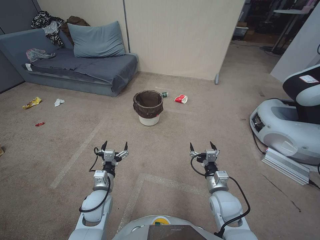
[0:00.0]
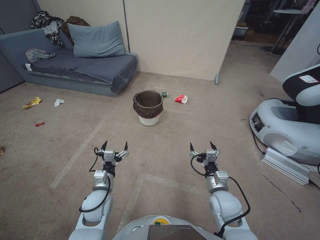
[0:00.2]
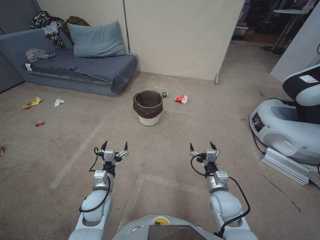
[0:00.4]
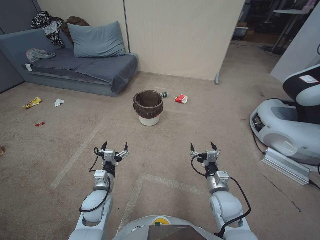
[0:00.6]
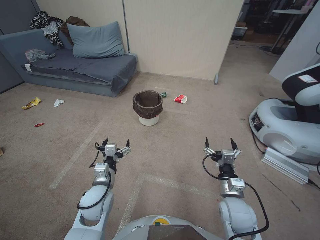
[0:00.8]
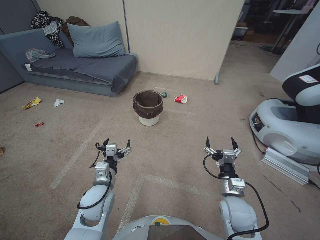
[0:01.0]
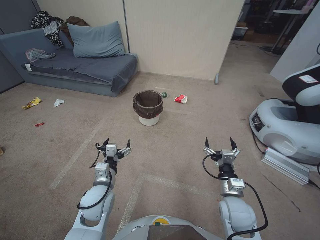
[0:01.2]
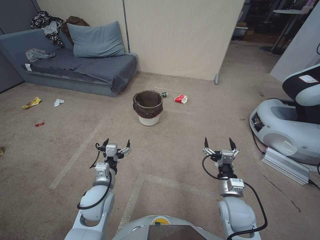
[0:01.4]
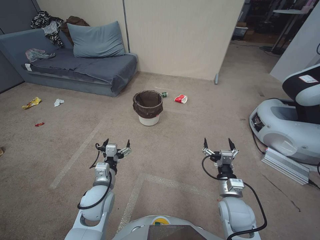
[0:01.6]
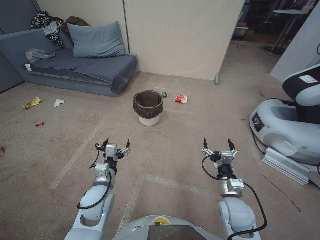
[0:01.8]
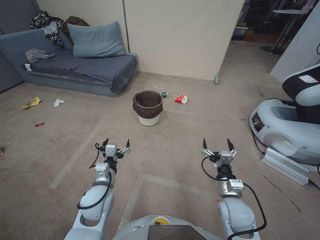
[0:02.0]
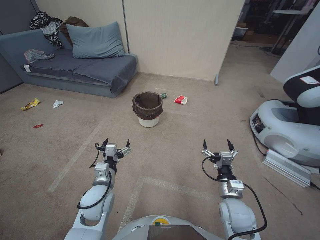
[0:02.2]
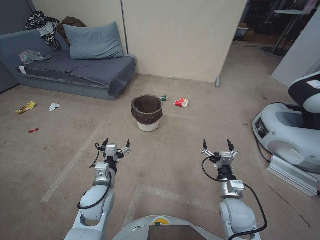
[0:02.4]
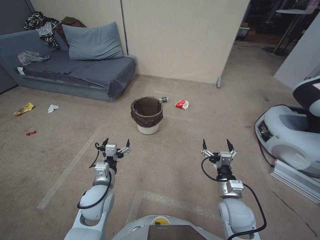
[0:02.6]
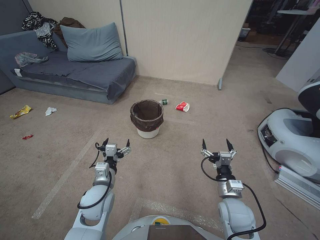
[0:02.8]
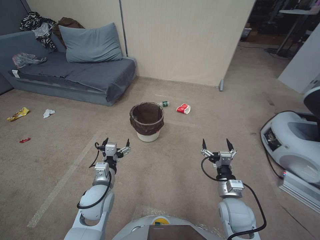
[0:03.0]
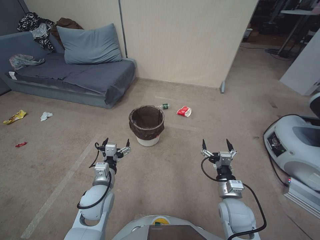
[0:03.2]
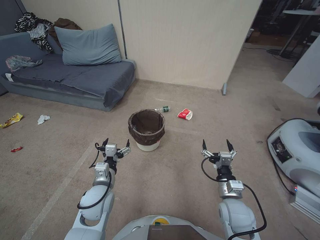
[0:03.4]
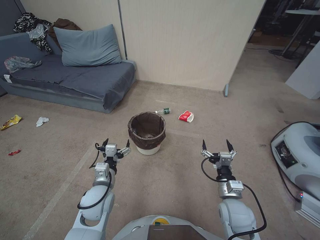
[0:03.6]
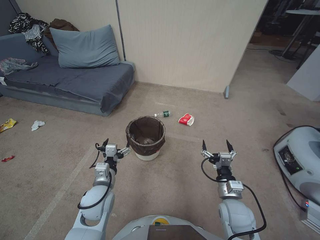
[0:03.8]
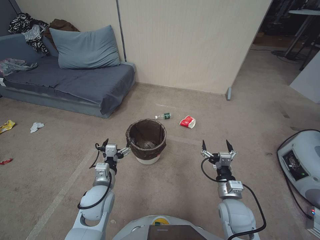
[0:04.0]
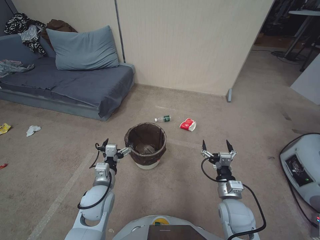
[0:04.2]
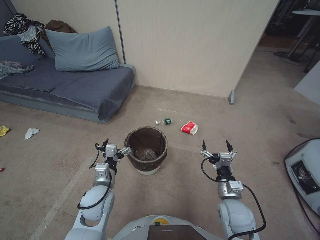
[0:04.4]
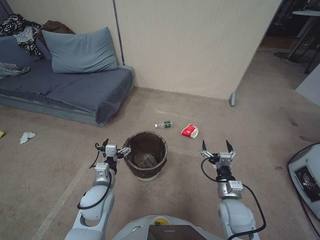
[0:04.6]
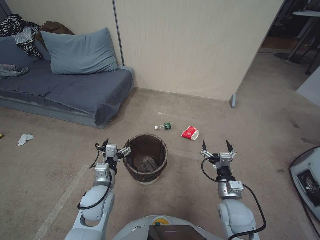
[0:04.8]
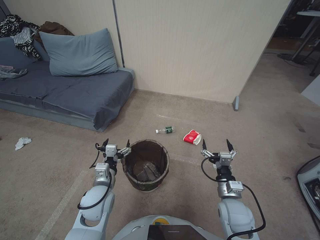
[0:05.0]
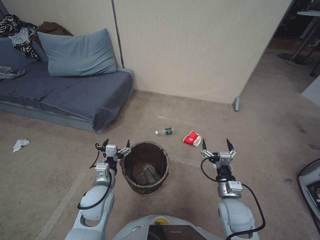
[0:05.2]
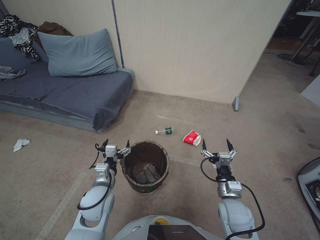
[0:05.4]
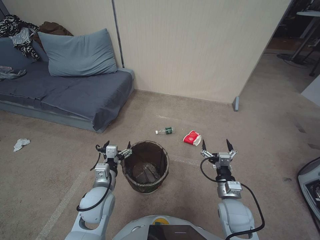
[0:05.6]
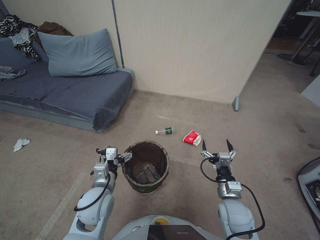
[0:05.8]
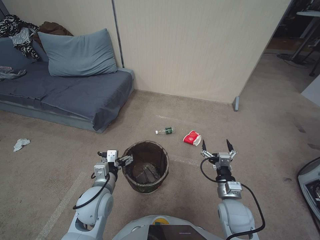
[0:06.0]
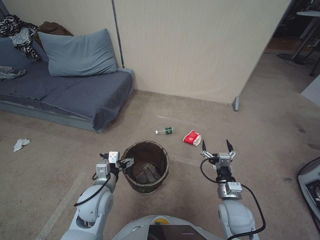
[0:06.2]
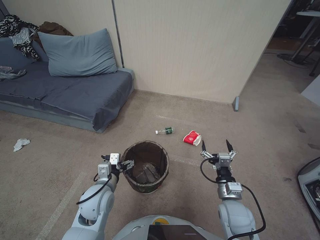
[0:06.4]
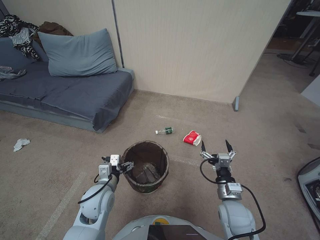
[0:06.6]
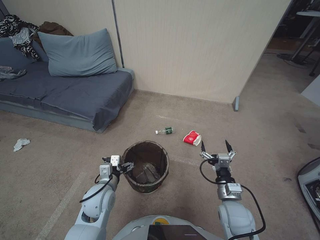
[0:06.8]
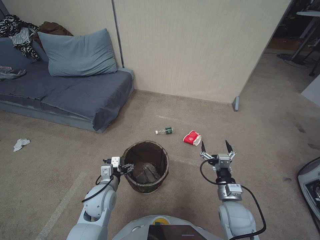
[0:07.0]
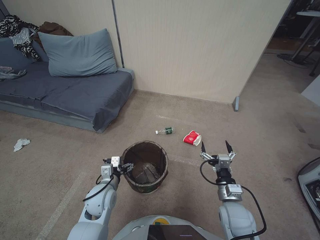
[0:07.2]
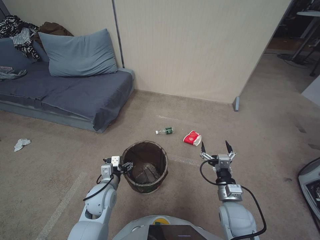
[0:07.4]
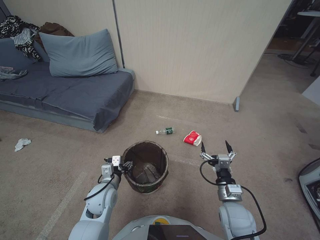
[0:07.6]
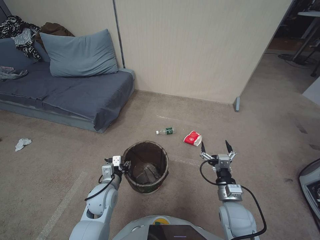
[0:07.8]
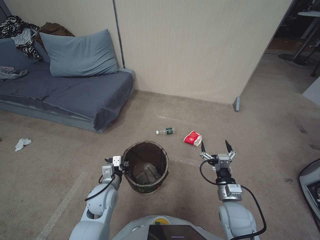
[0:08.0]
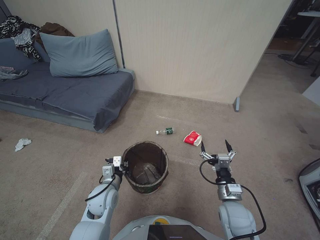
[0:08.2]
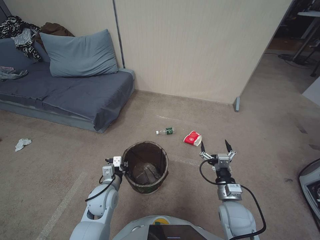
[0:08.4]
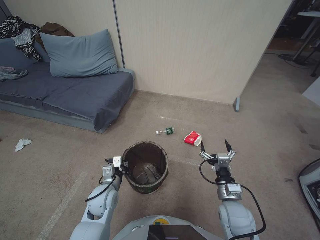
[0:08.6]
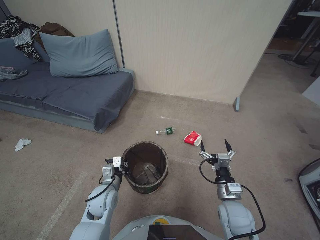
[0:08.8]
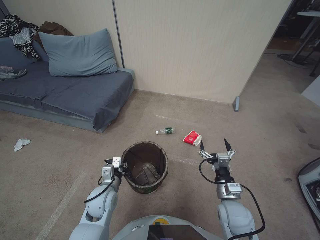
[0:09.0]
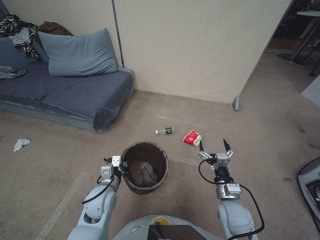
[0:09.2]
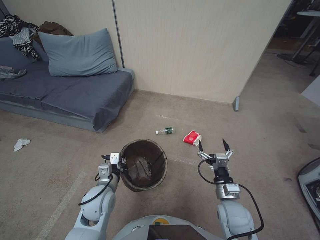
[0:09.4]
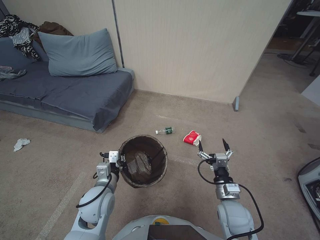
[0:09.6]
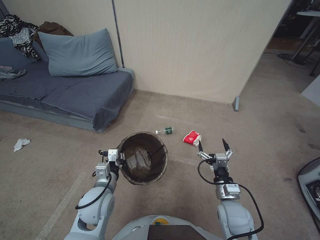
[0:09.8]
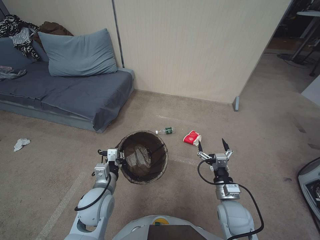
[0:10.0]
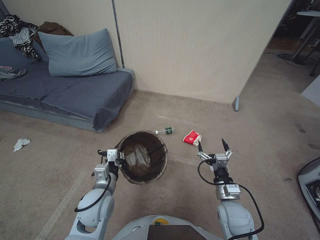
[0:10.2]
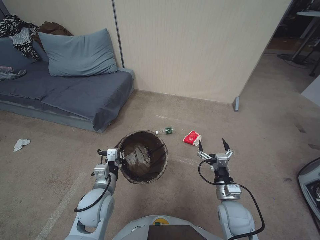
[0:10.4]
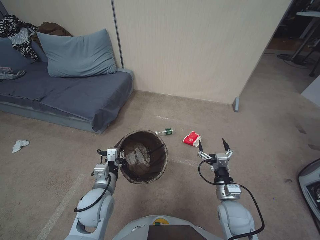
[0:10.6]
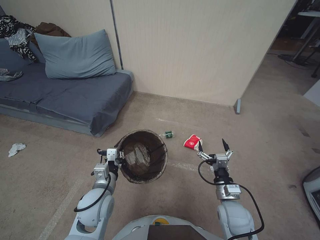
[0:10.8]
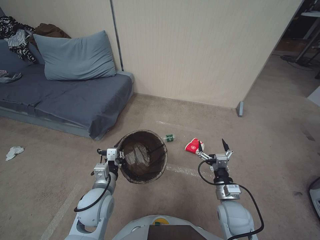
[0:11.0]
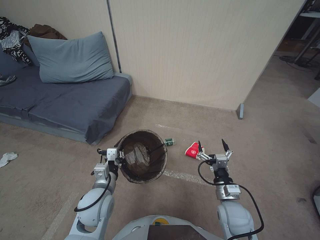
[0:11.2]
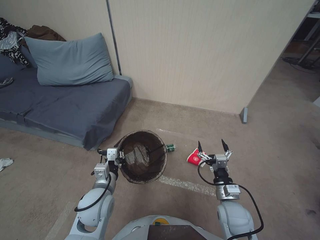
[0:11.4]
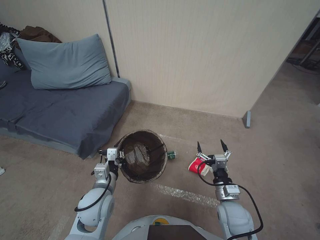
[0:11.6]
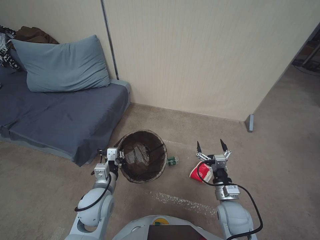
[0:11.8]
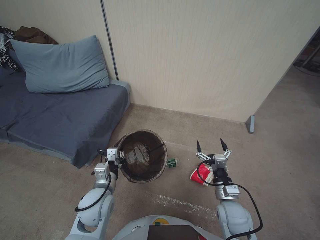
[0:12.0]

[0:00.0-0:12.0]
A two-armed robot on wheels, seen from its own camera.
Task of the whole recording: Pick up the trash bin, then pick up the garbage from the floor and place it into the trash bin.
0:01.6 to 0:03.0: Both grippers stay about where they are.
0:04.4 to 0:06.0: The grippers make only small movements.
0:06.0 to 0:07.6: The left gripper travels downward by roughly 5 cm.
0:07.6 to 0:09.0: The left gripper closes its fingers.
0:09.0 to 0:10.4: The left gripper moves upward, approximately 5 cm.

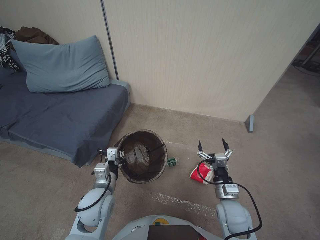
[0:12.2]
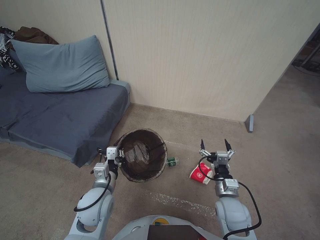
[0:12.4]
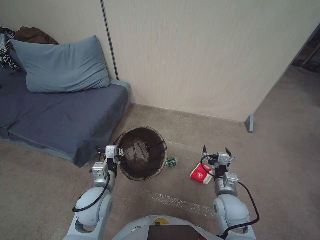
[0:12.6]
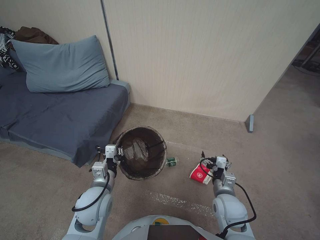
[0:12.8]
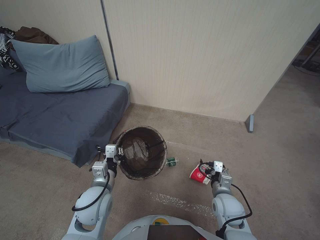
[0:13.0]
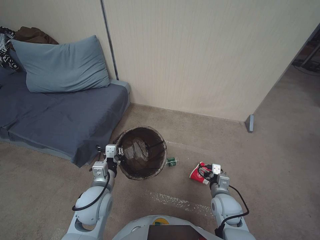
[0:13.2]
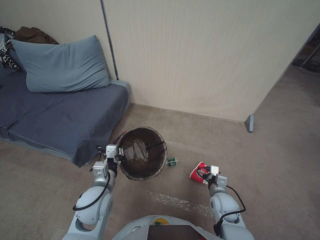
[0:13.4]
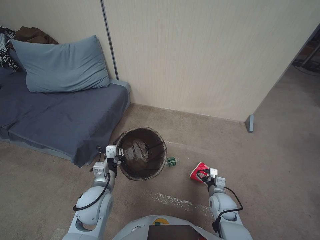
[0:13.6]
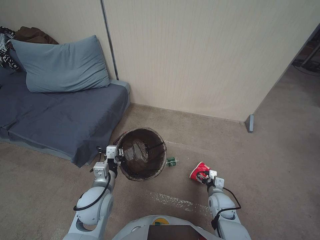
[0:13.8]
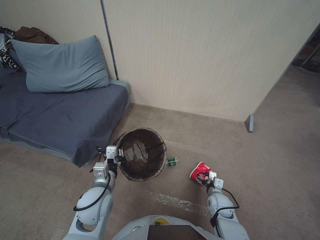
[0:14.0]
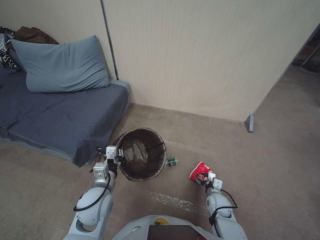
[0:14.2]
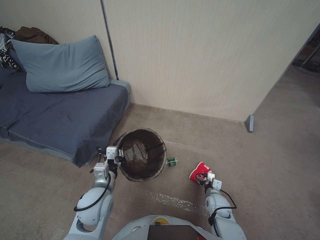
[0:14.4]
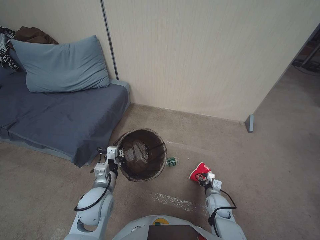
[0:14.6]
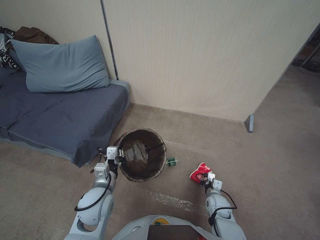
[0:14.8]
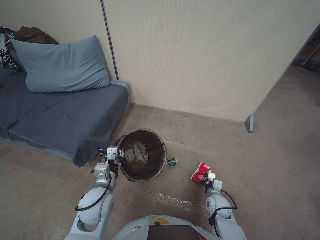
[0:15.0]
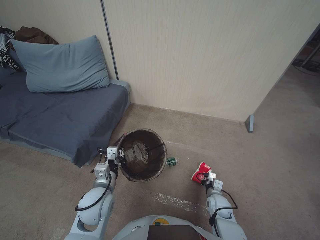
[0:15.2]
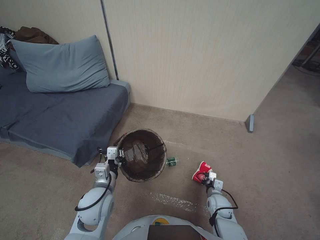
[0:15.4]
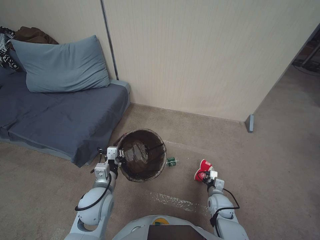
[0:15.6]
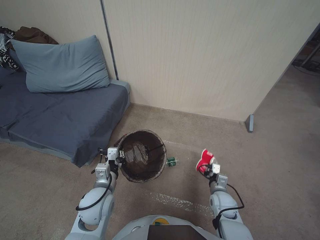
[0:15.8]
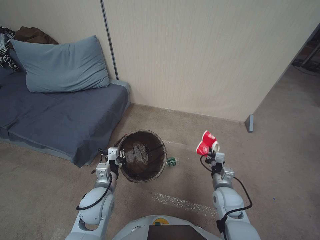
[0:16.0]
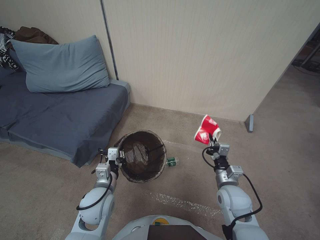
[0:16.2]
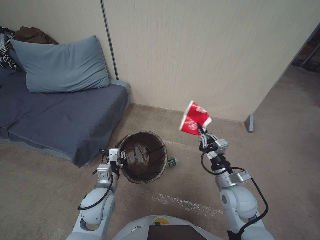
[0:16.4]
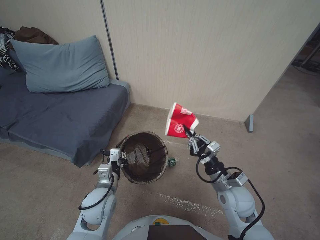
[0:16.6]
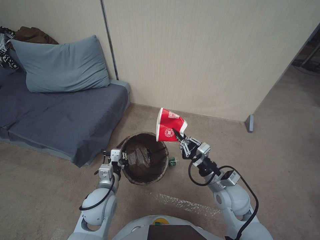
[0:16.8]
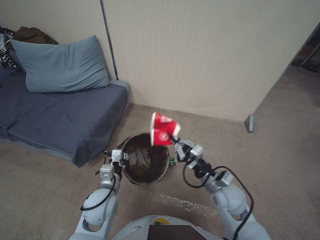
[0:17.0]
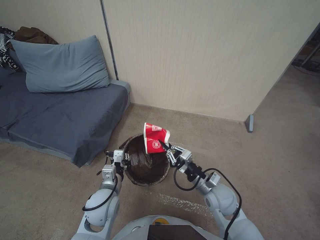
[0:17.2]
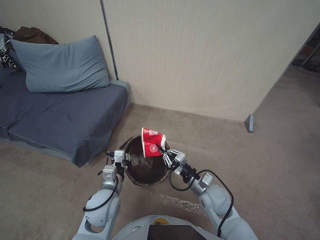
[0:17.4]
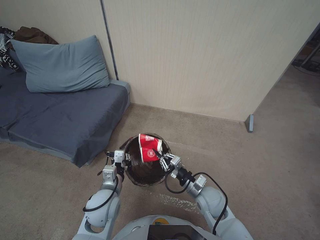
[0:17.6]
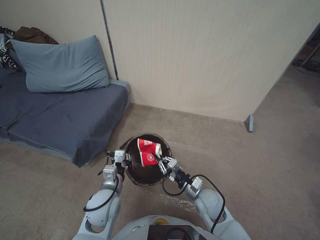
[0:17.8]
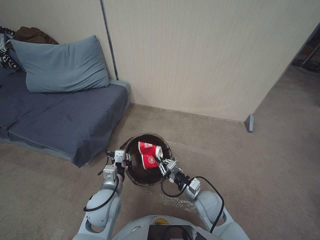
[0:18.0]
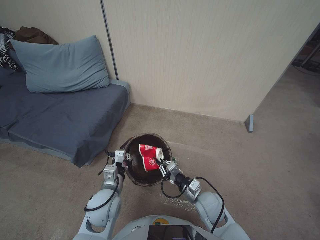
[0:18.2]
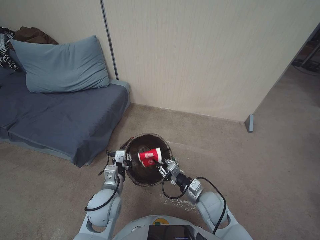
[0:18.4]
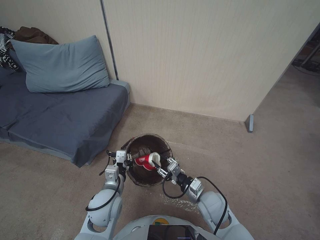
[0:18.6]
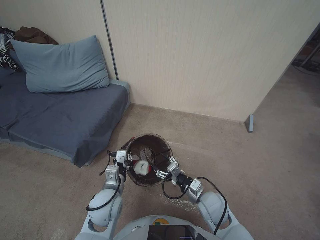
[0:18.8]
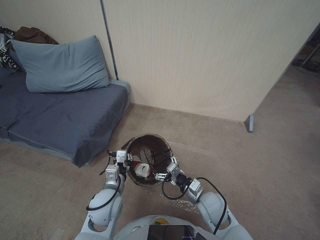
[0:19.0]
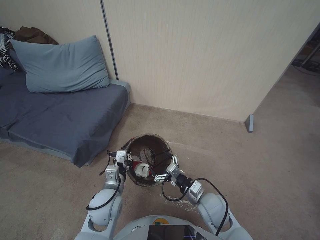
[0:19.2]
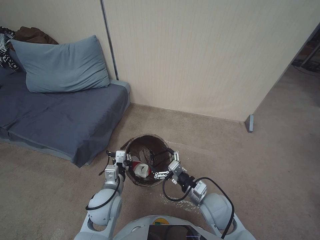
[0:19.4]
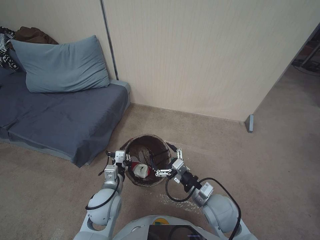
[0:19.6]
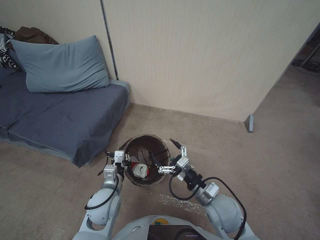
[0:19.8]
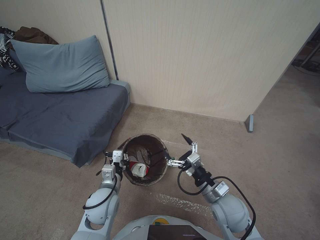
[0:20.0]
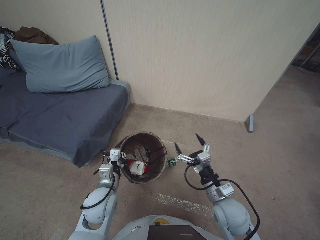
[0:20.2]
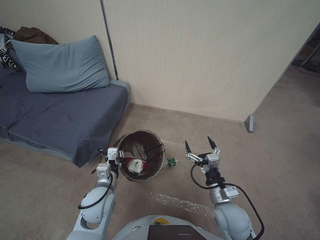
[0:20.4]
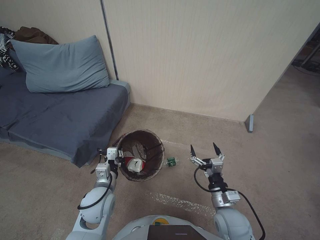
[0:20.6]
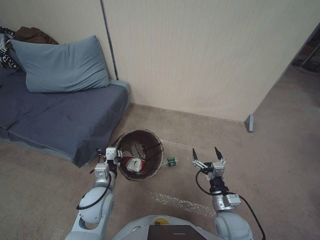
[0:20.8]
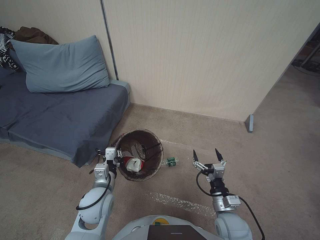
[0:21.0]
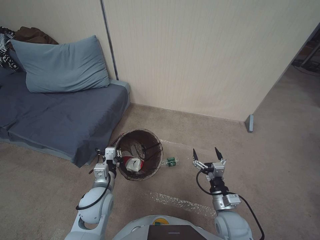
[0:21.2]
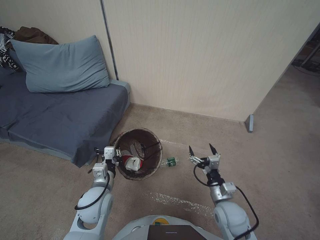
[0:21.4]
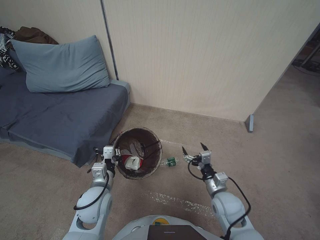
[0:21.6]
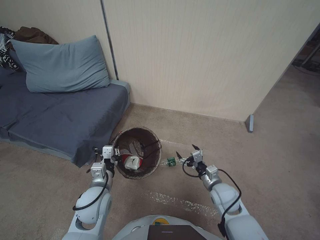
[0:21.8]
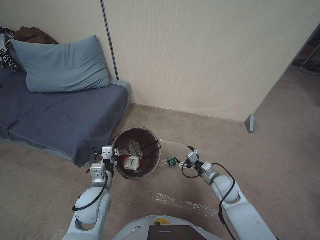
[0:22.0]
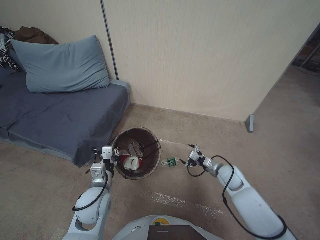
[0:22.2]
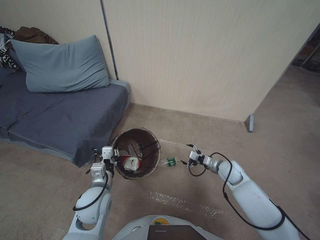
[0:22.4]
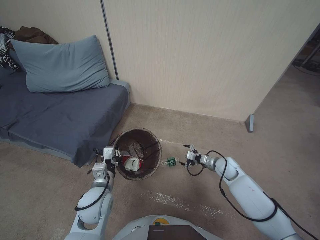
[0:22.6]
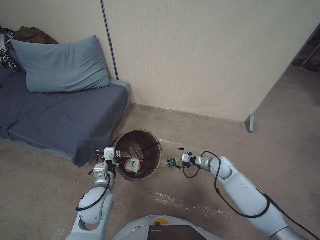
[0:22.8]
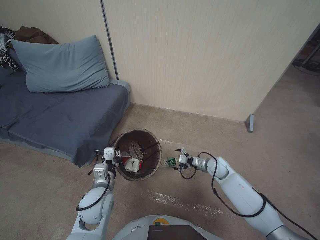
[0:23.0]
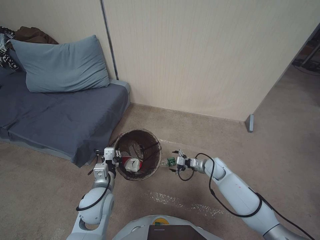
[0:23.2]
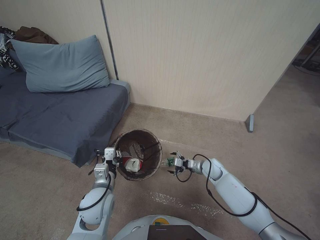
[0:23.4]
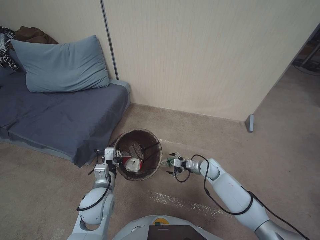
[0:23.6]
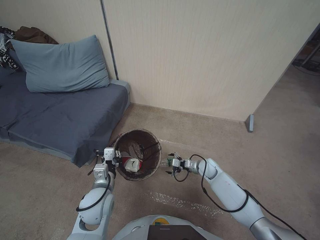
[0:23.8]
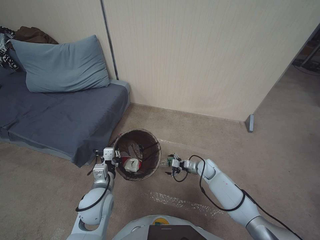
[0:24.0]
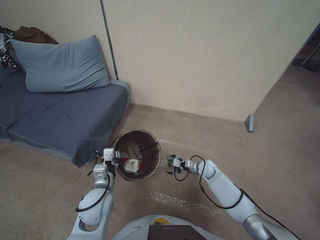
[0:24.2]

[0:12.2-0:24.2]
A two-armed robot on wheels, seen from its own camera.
Task of the whole recording: Pick up the trash bin, then pick up the garbage from the floor and place it into the trash bin.
0:12.2 to 0:13.8: The right gripper travels downward by some 5 cm.
0:13.8 to 0:15.2: The right gripper shifts about 10 cm downward, and closes.
0:15.2 to 0:16.6: The right gripper moves upward, some 20 cm.
0:16.6 to 0:18.2: The right gripper goes about 10 cm downward and to the left.
0:18.2 to 0:19.8: The right gripper heads upward, covering roughly 5 cm, and opens.
0:19.8 to 0:21.2: The right gripper is displaced downward by approximately 5 cm.
0:21.2 to 0:22.6: The right gripper moves forward and to the right, roughly 20 cm.
0:22.6 to 0:24.2: The right gripper is displaced downward and to the left by some 10 cm.
